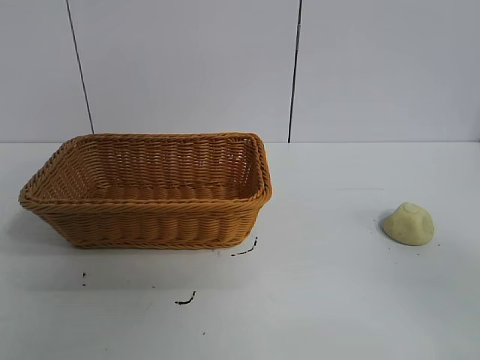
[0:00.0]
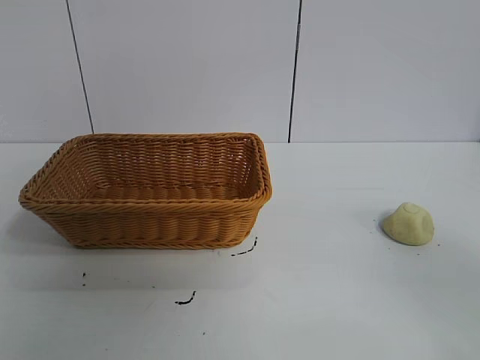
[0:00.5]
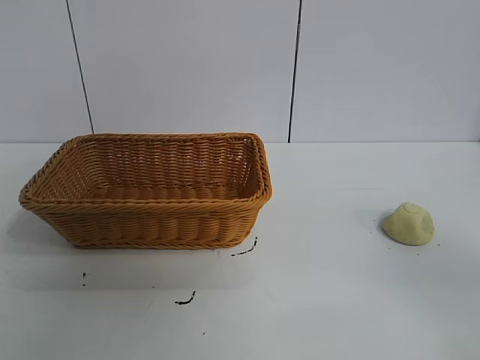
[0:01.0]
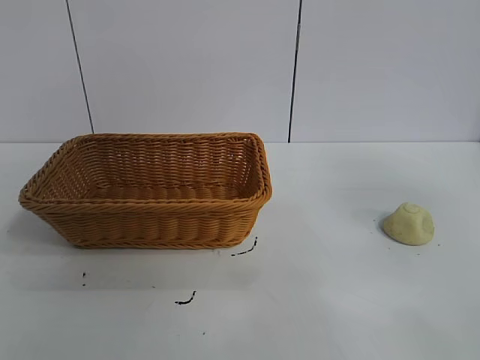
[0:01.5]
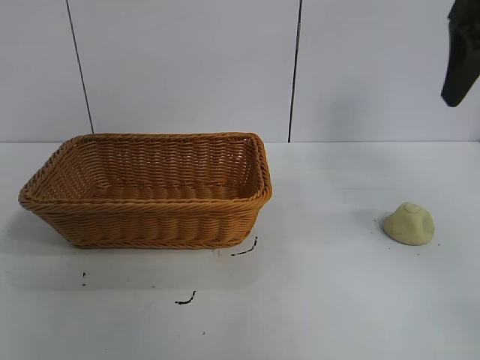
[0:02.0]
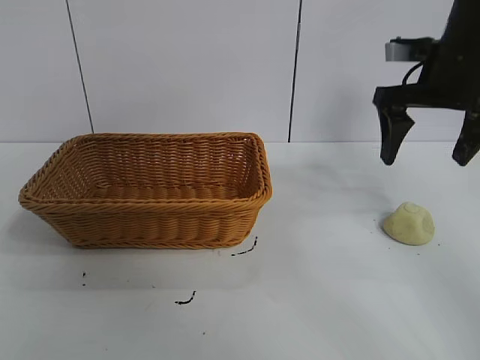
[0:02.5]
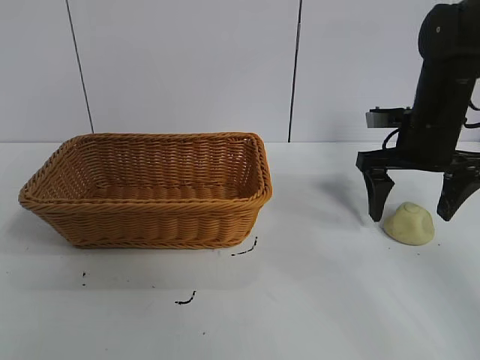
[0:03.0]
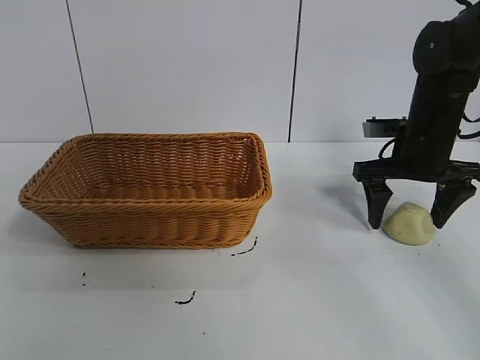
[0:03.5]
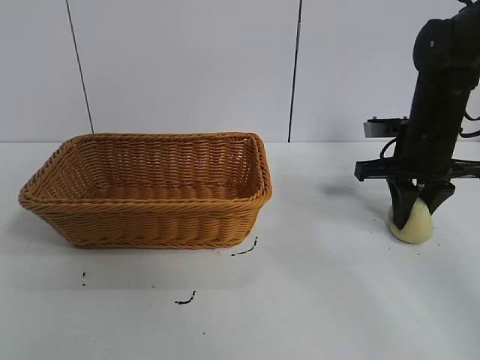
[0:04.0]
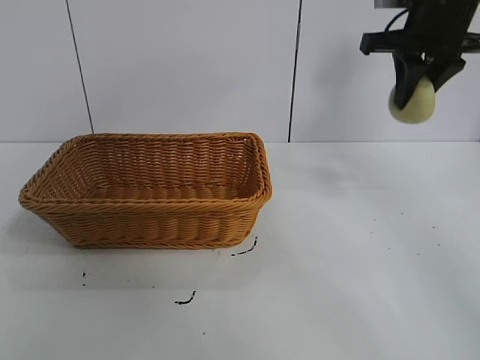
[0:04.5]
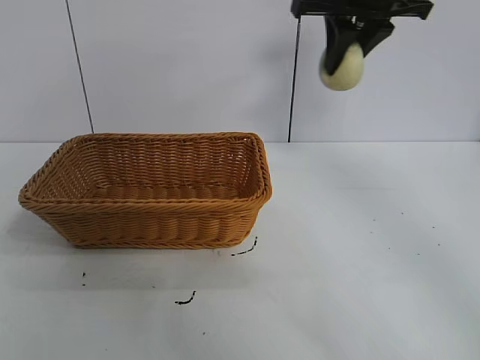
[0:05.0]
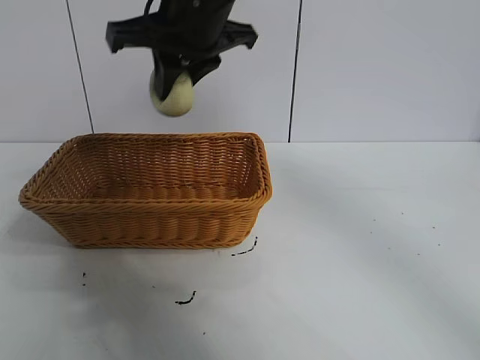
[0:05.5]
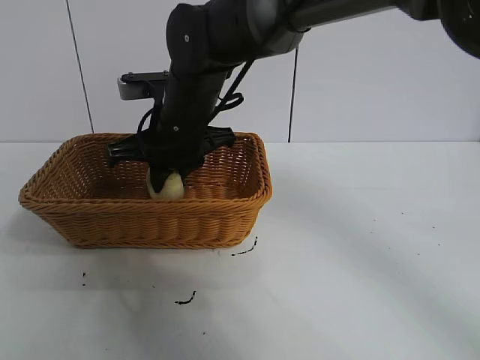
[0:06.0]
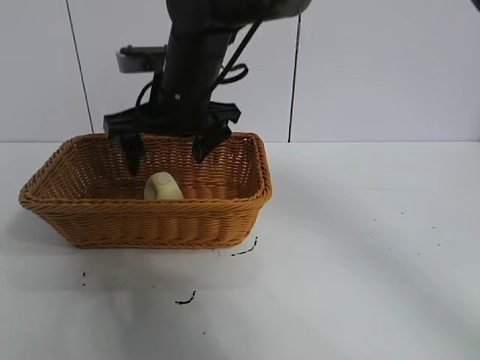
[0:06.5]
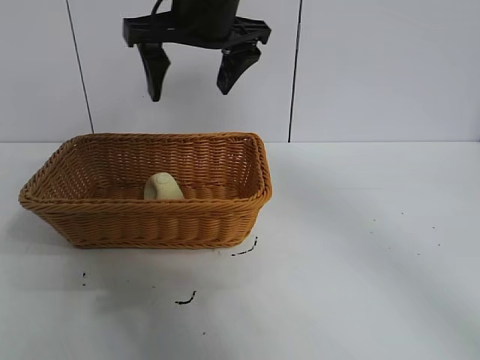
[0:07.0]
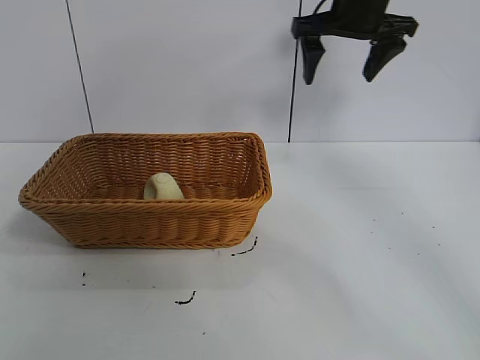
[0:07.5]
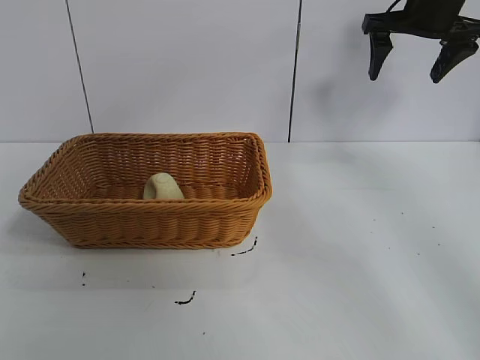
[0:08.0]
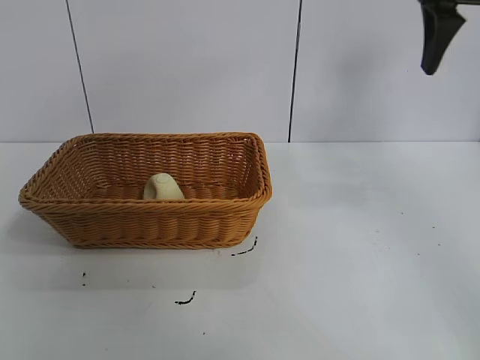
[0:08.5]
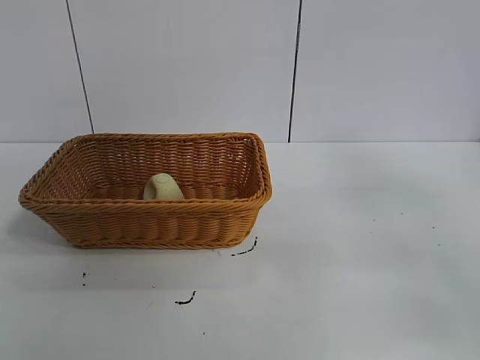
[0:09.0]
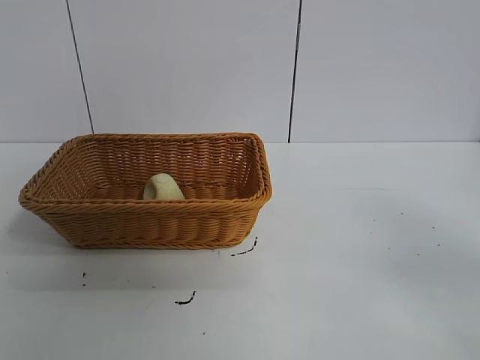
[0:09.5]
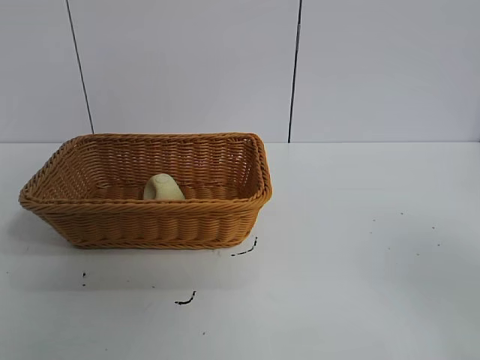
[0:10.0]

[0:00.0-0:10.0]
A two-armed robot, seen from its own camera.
Task of the whole recording: pick up the egg yolk pastry and put it into the basket.
Step, 0:01.0 to 0:03.5: Grasp egg yolk pastry with right gripper.
Step, 0:04.5 to 0:06.0: Place the egg yolk pastry in the basket with right gripper.

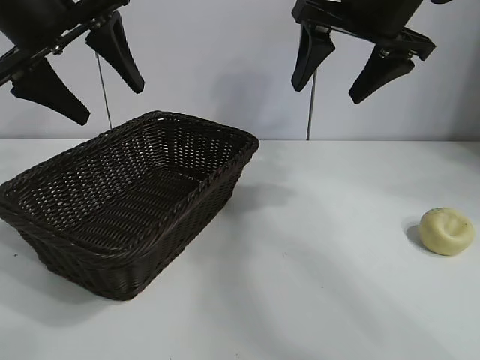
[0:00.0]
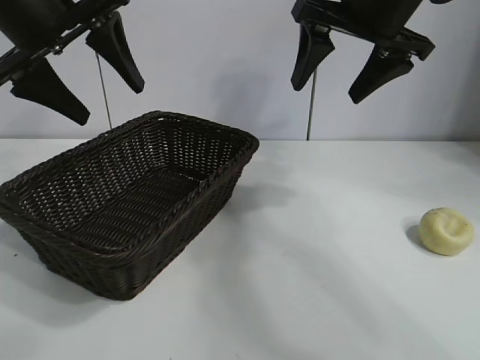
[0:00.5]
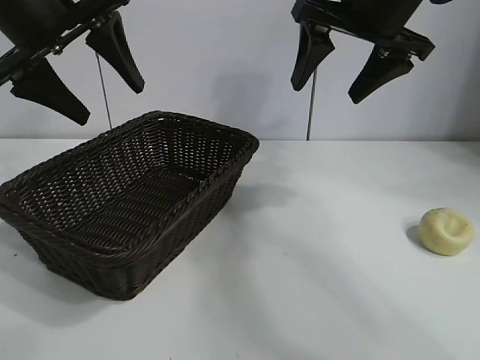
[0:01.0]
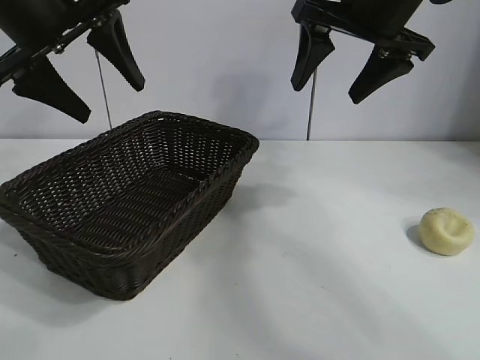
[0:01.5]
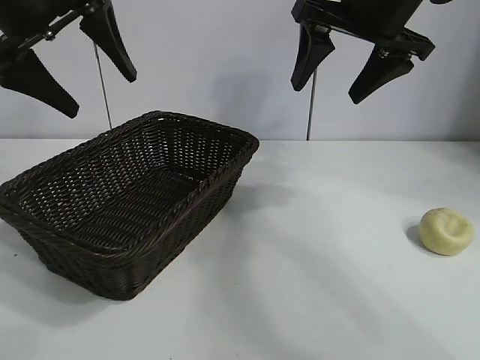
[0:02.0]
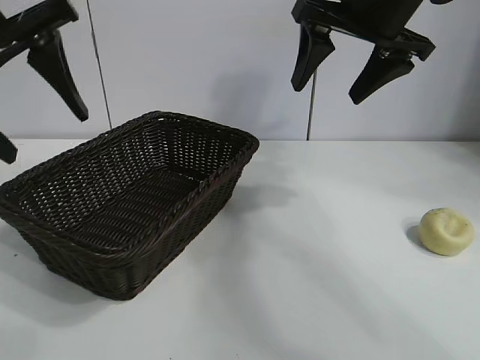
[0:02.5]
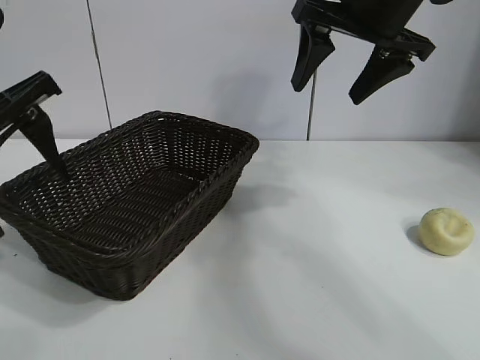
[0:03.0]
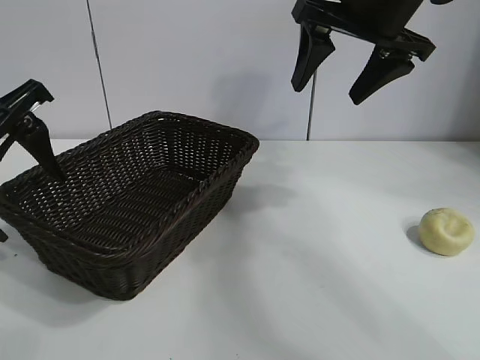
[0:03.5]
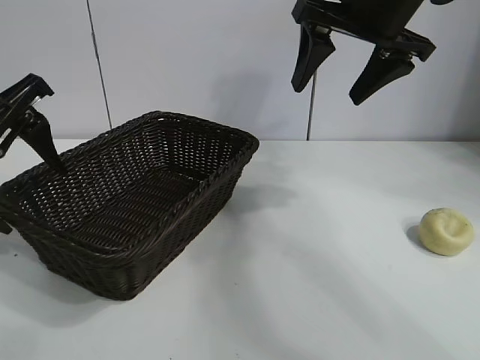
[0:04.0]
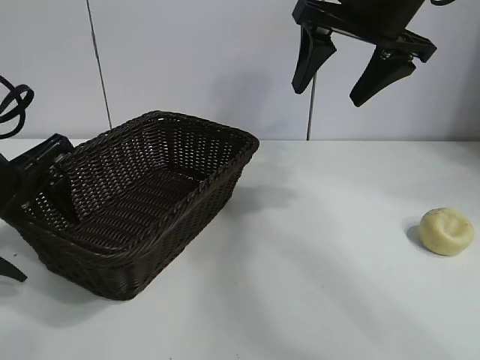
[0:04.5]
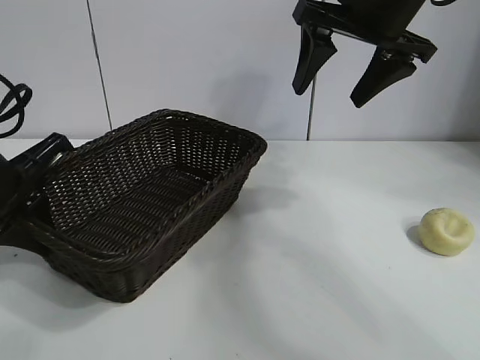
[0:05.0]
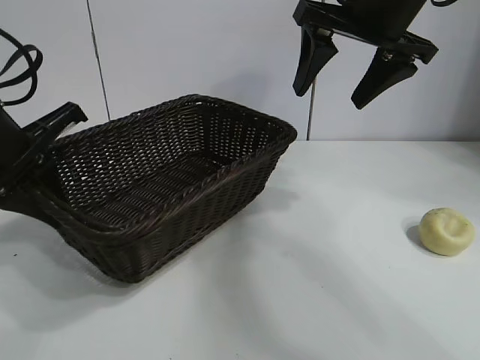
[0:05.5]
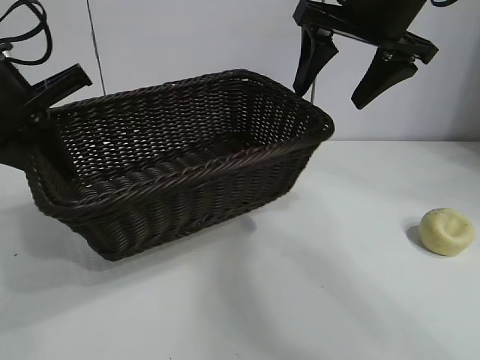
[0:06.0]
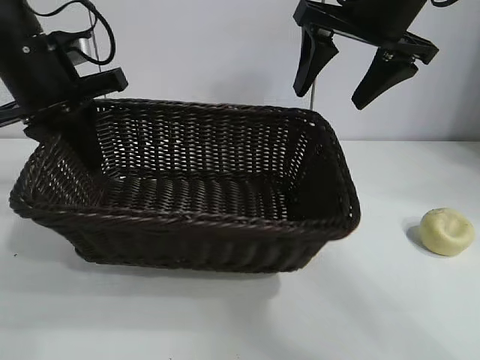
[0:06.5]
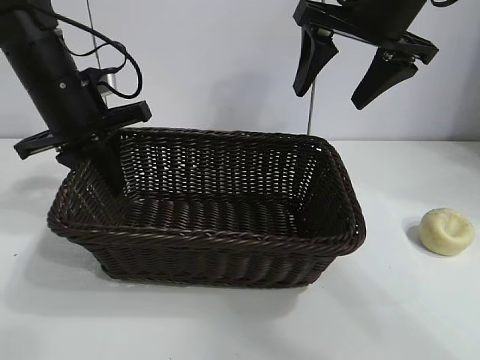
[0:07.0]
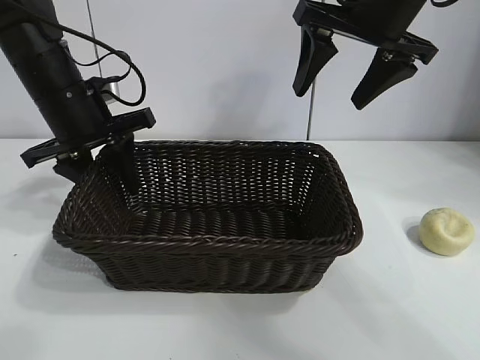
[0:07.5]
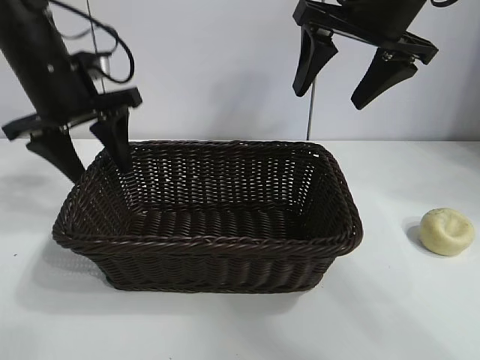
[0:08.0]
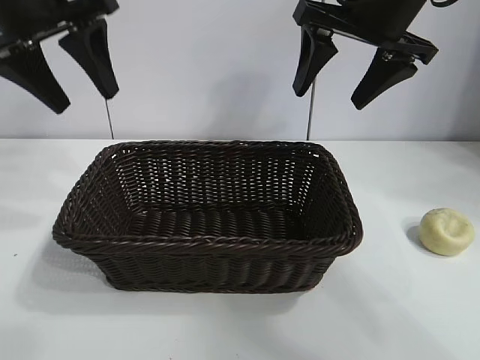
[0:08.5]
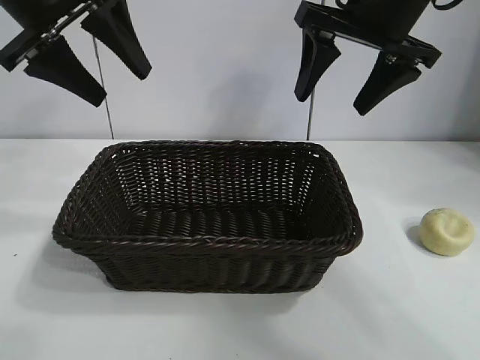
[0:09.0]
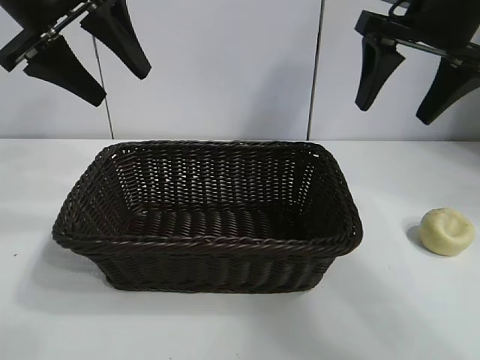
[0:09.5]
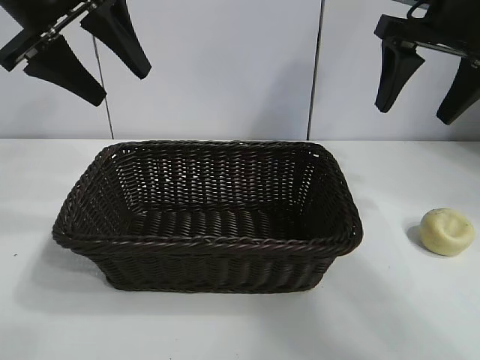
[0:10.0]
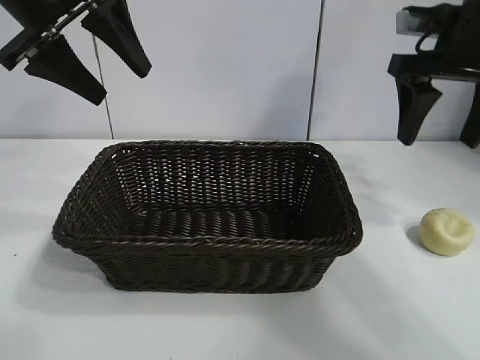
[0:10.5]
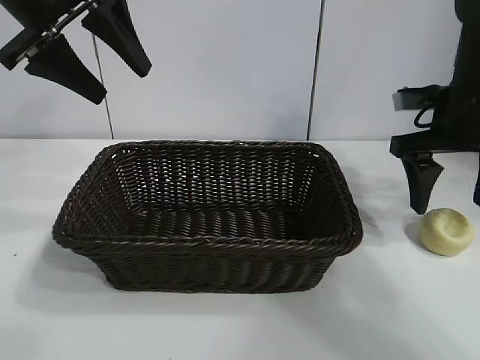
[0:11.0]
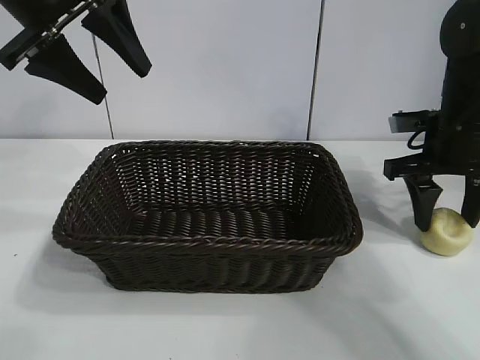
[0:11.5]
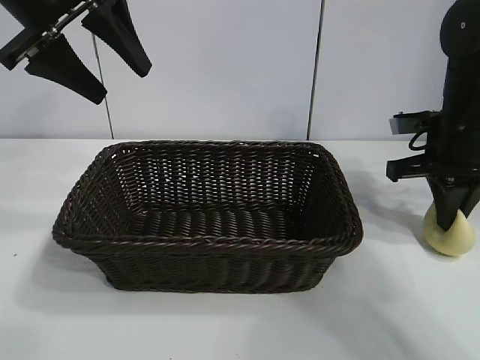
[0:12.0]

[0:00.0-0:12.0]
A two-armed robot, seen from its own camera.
Task of the whole recording: pick up the egg yolk pastry and put it into the basket.
Step, 0:01.5 to 0:04.5: Grasp the basket with left gripper.
Step, 0:05.0 to 0:07.5: Place the basket in the center of view with left gripper.
Step, 0:08.0 to 0:11.5: Grasp egg yolk pastry with right gripper.

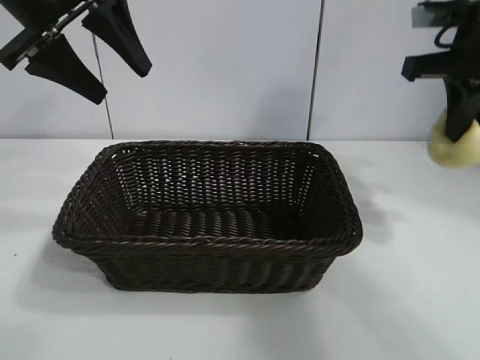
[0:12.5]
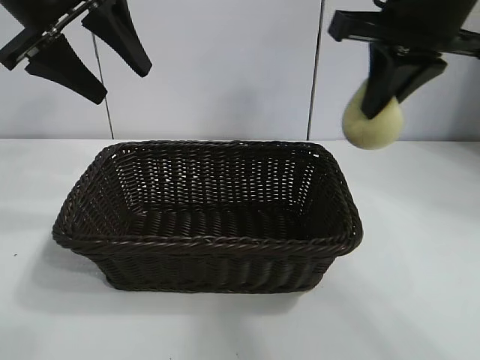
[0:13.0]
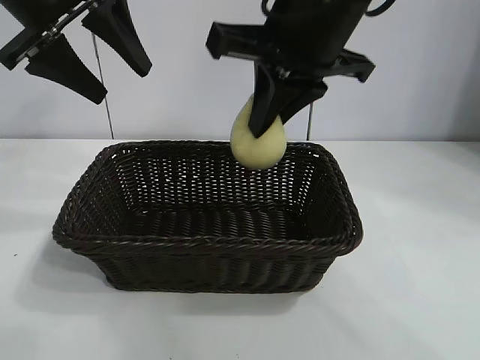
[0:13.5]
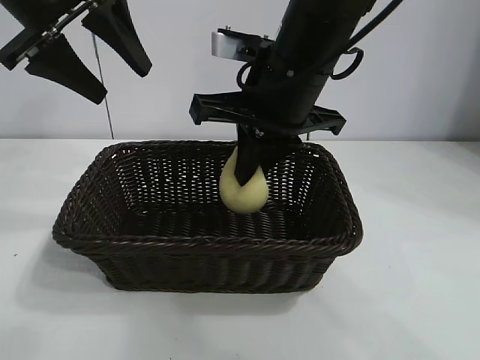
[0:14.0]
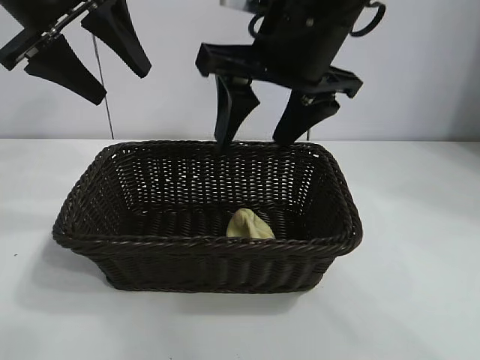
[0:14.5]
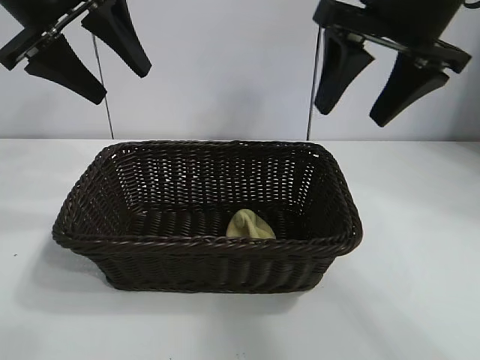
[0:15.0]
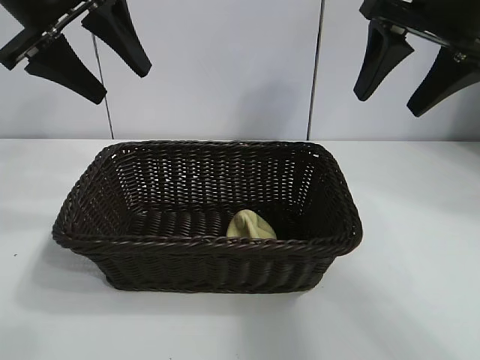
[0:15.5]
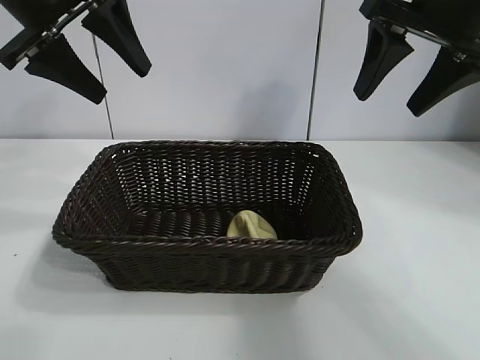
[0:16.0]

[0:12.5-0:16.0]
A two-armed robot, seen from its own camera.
Task of the whole recording: pick up the egg yolk pastry and put it into the basket.
Step, 0:12.5 to 0:14.0: Place the egg yolk pastry in the basket with right gripper.
